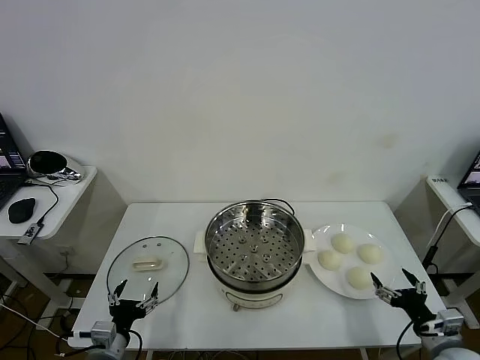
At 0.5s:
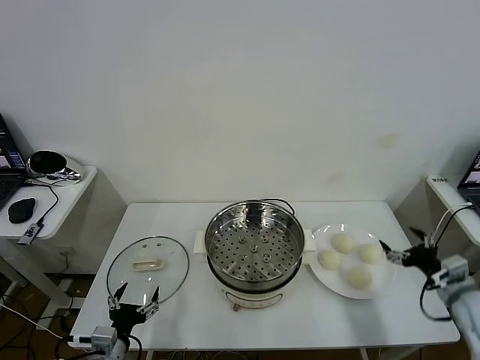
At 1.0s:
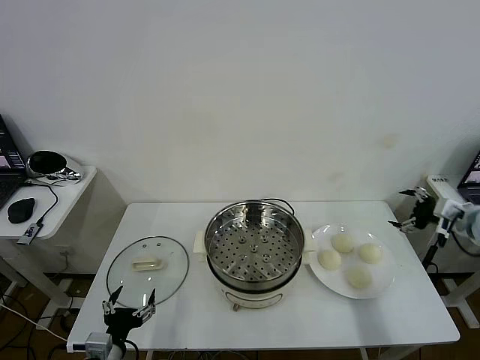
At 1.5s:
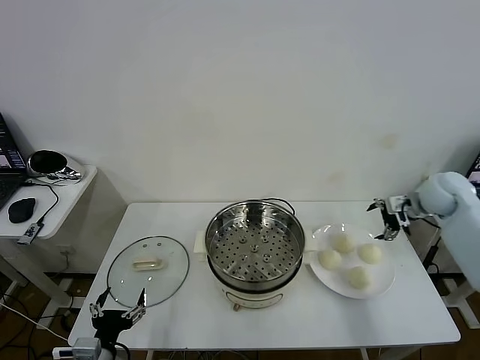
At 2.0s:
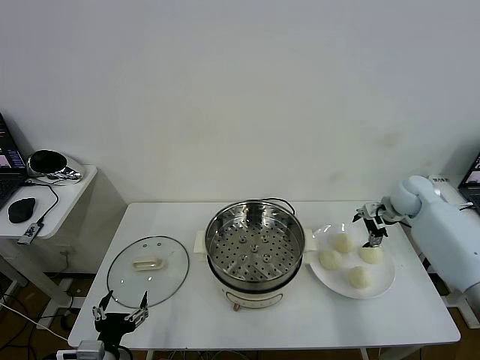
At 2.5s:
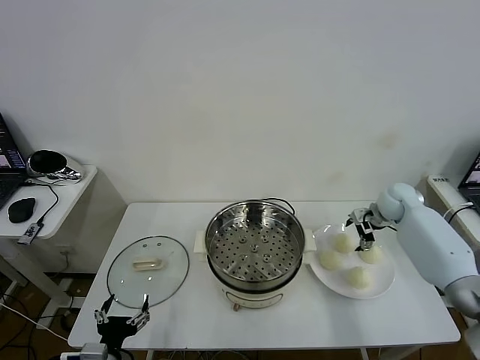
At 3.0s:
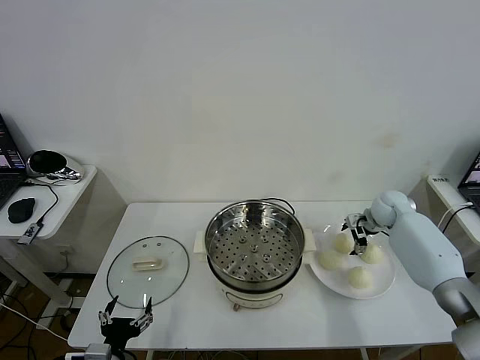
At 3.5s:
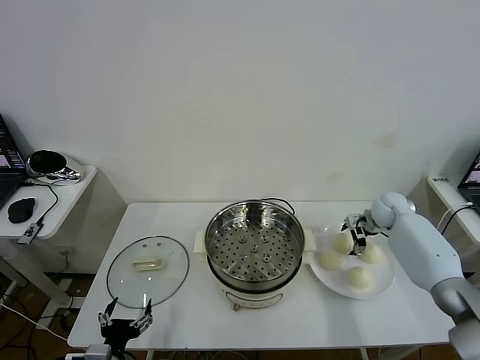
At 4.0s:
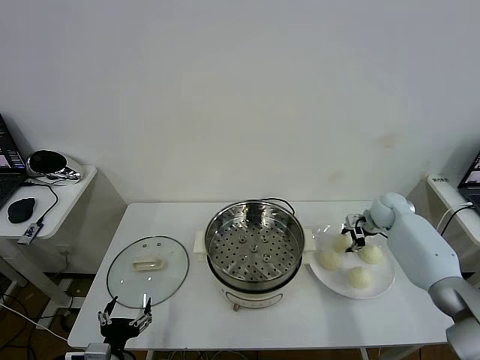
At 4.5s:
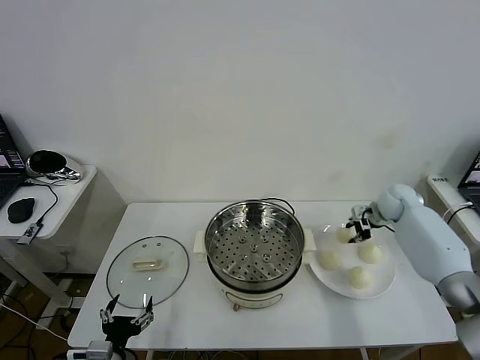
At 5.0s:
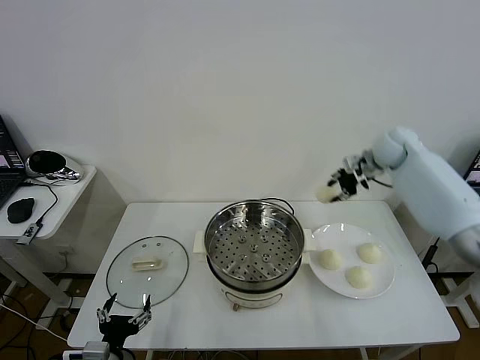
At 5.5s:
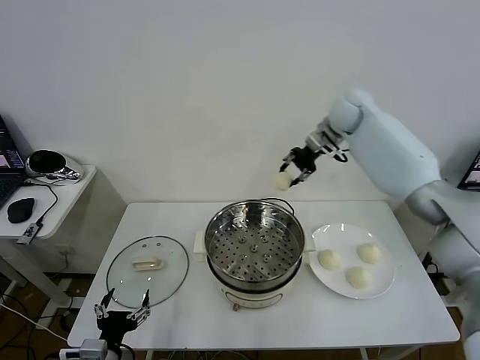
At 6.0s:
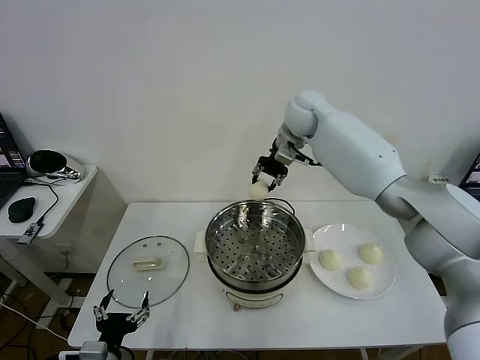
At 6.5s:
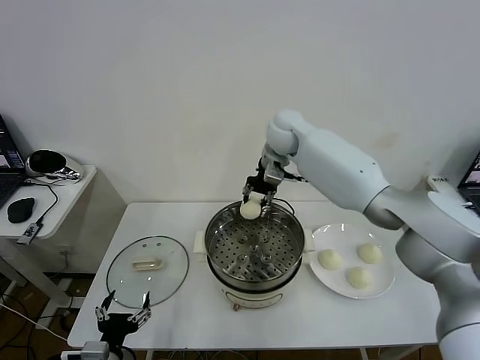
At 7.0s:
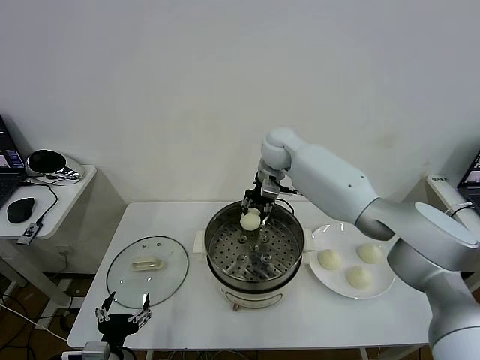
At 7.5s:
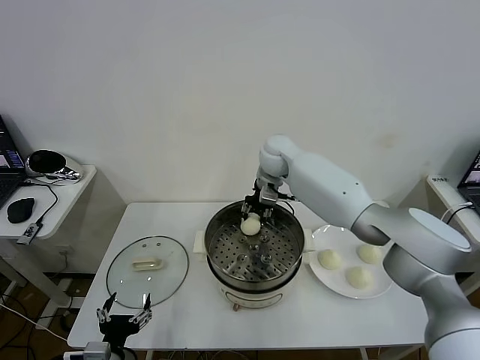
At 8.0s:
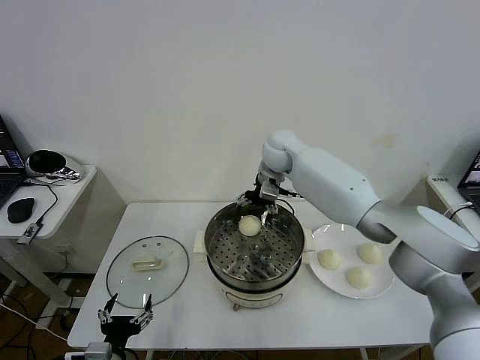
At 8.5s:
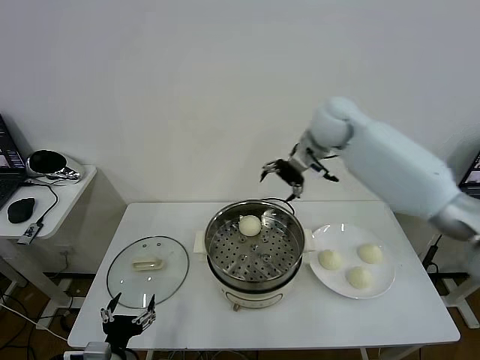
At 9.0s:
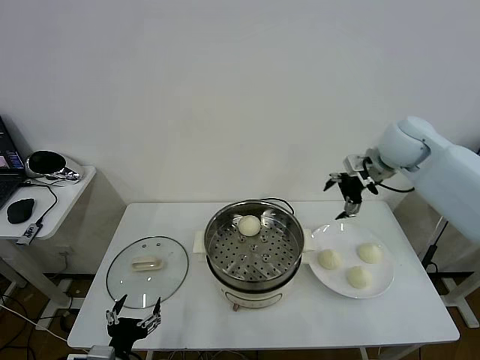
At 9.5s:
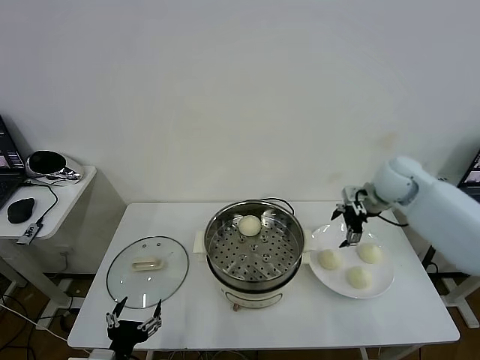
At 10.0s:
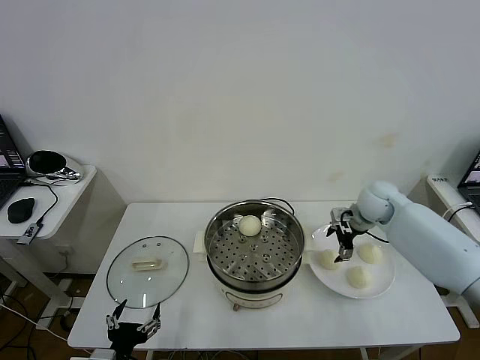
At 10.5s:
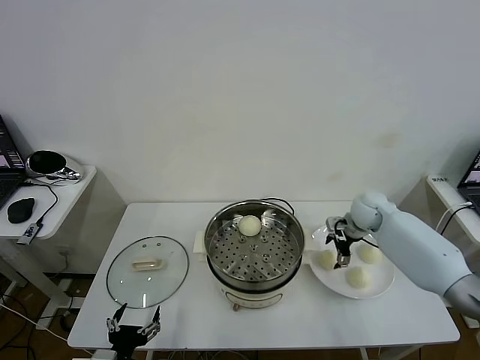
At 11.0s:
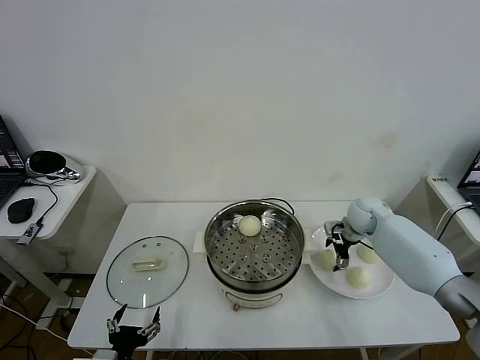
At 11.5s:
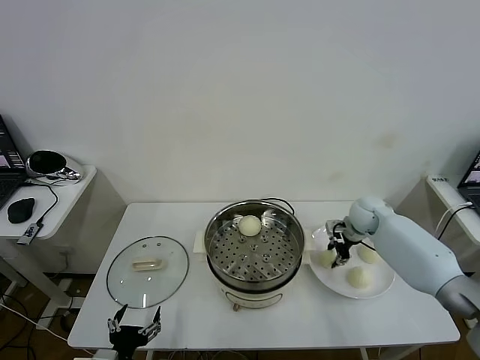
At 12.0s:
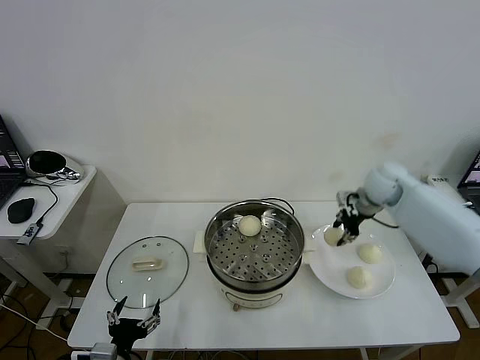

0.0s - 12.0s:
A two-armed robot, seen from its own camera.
Task of the whole recording: take steamed baozi put them in steamer then cover it.
Step, 0.0s - 3.5s: Grasp the baozi in the plate with right gripper.
Step, 4.0s - 8.0s: Place the baozi on the steamer with right gripper.
Step, 8.5s - 11.0s: Grasp the baozi in the plate with right gripper.
2.0s - 4.0s: The right gripper goes some 5 cm downward, and closes its fingers.
4.0s - 6.0s: The right gripper travels to the left and upward by about 35 cm.
6.0s - 8.0s: The right gripper opens.
8.0s - 10.0s: The right gripper moves to the right and downward, approximately 25 cm.
10.0s - 12.0s: The right gripper moves upward, some 10 cm, and closes its fingers.

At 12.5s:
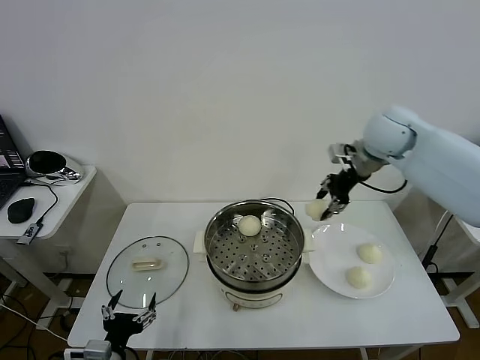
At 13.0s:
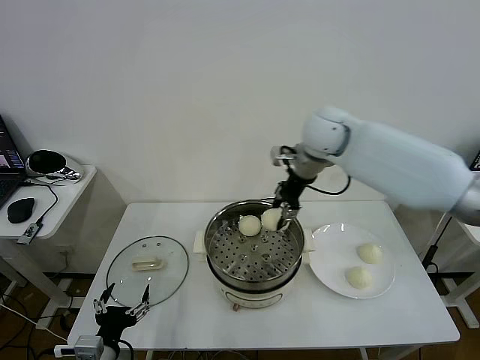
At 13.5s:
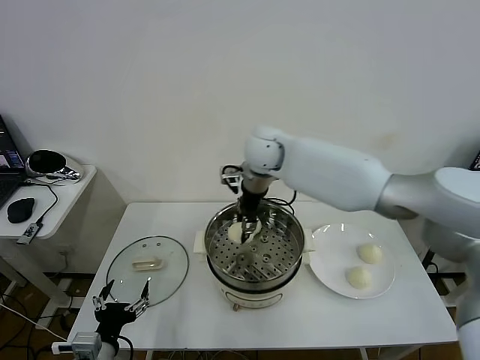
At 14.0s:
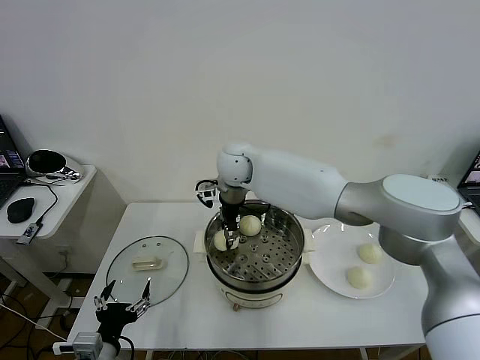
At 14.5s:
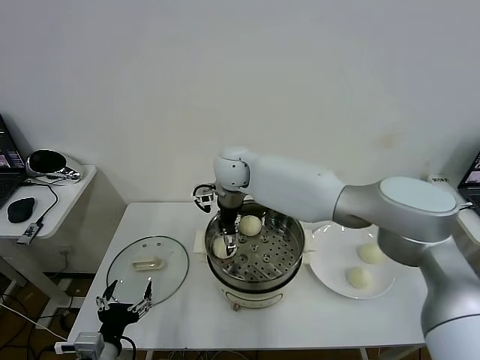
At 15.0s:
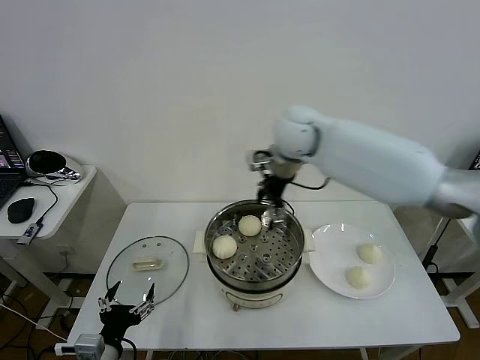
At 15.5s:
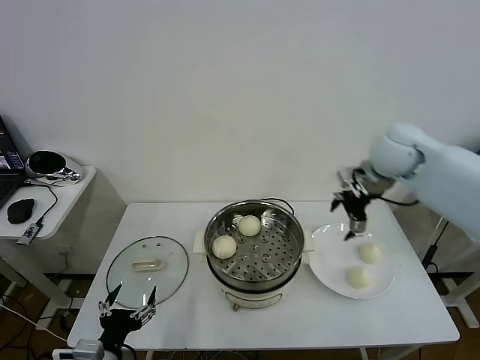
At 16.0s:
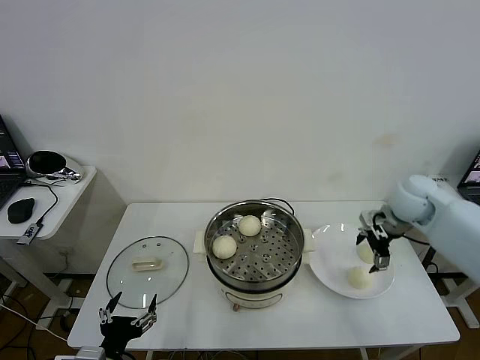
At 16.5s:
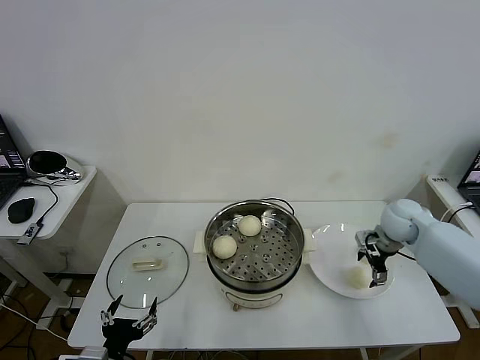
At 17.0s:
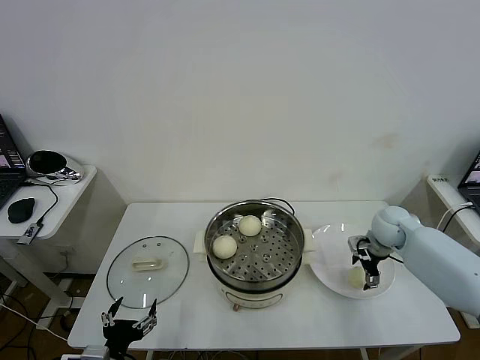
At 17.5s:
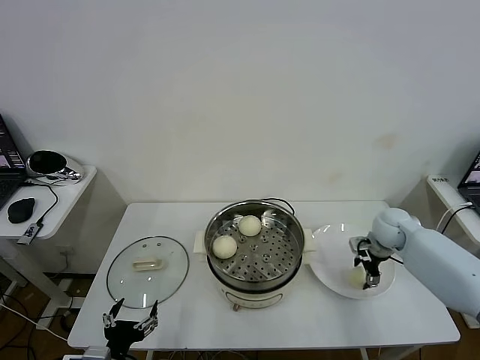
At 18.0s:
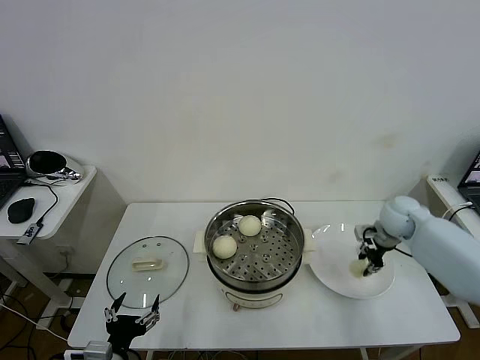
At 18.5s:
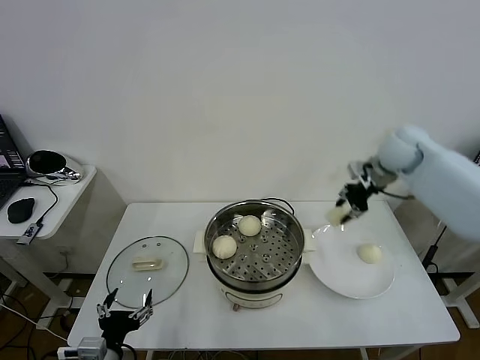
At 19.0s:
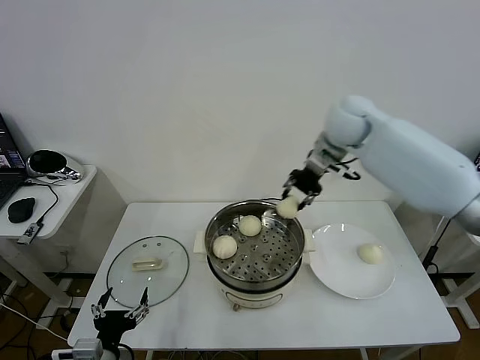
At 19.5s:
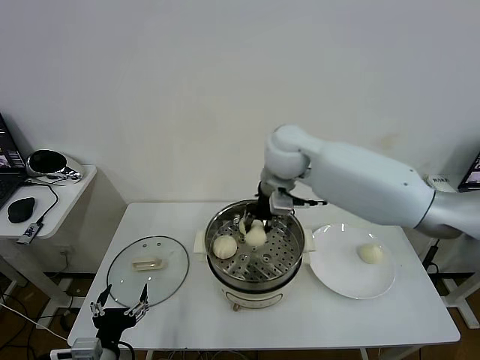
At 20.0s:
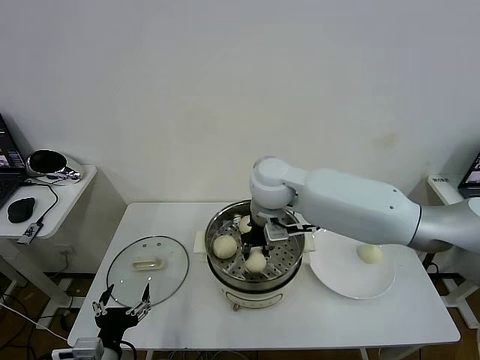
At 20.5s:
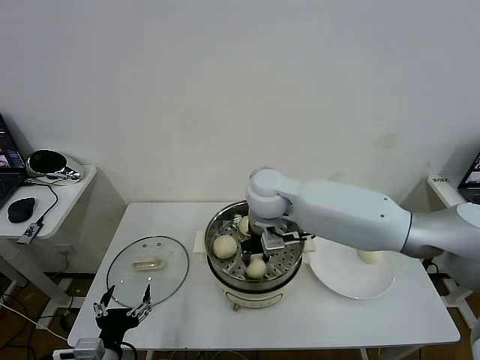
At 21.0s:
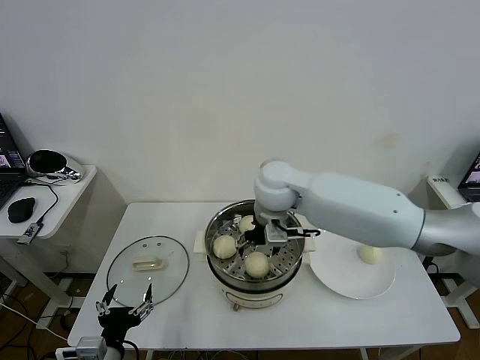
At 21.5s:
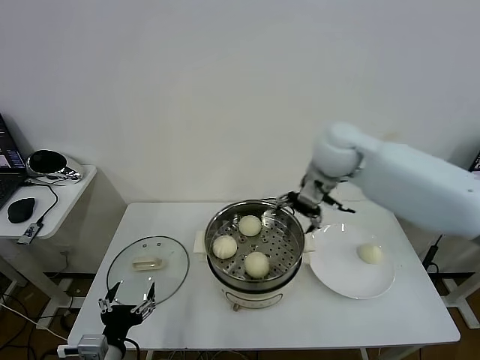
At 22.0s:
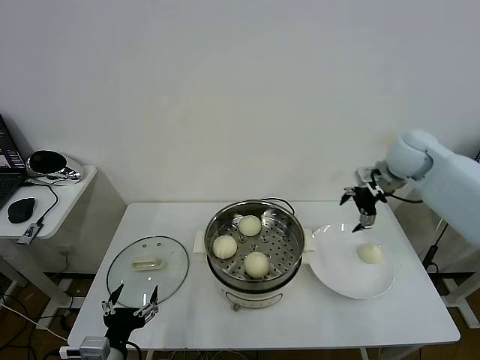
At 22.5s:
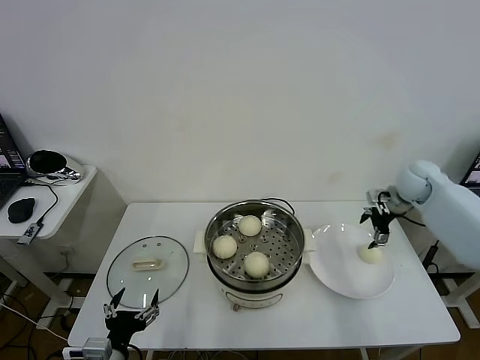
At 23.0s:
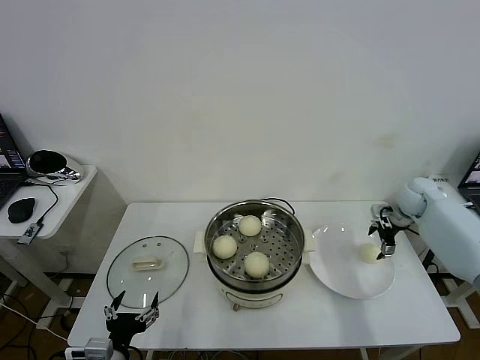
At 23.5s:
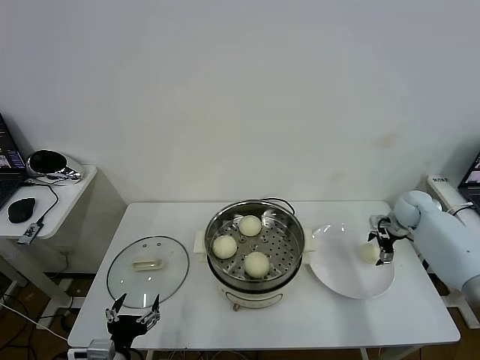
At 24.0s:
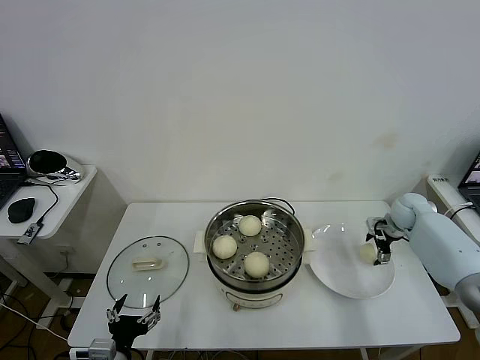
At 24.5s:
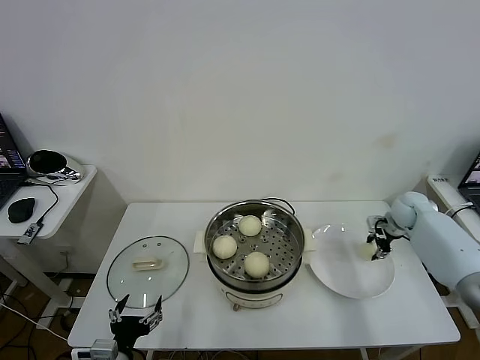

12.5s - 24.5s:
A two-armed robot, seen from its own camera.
Task of the whole recording: take steamed baozi put them in steamer then cover it.
Step, 12.5s - 14.5s: Place the baozi on the steamer with right gripper.
Step, 15.0s - 17.5s: Grasp the baozi in the plate with right gripper.
Step, 18.0s - 20.5s: Place the baozi on the steamer with right gripper.
12.5s - 14.5s: The right gripper shifts some 25 cm to the left, and opens its fingers.
14.5s - 16.5s: The right gripper moves to the right, about 40 cm.
16.5s - 18.5s: The right gripper heads upward, covering about 20 cm, and closes up.
18.5s - 20.5s: The right gripper goes approximately 25 cm to the left.
20.5s - 22.5s: The right gripper goes about 35 cm to the right, and opens its fingers.
22.5s - 24.5s: The right gripper heads downward, covering about 10 cm, and closes up.

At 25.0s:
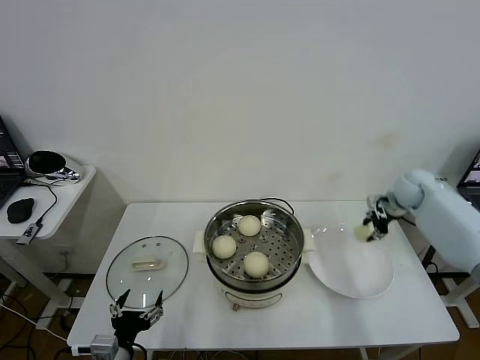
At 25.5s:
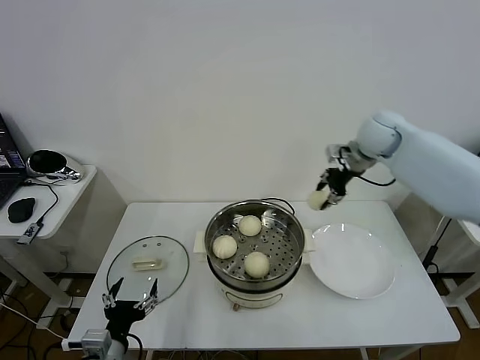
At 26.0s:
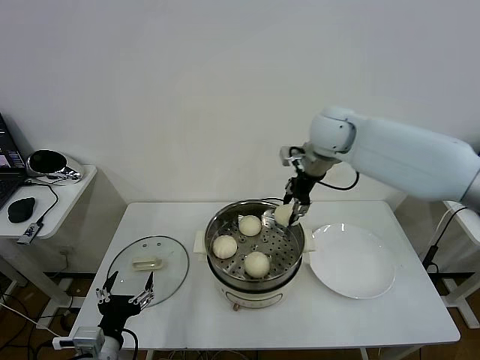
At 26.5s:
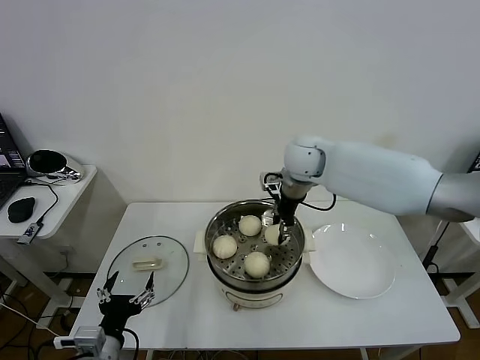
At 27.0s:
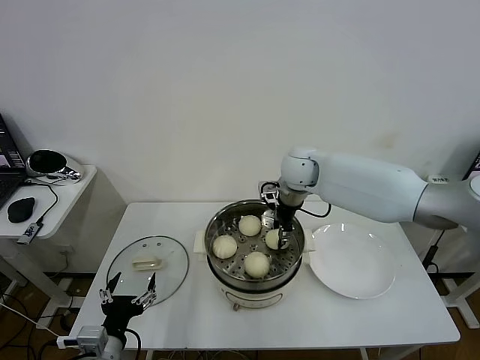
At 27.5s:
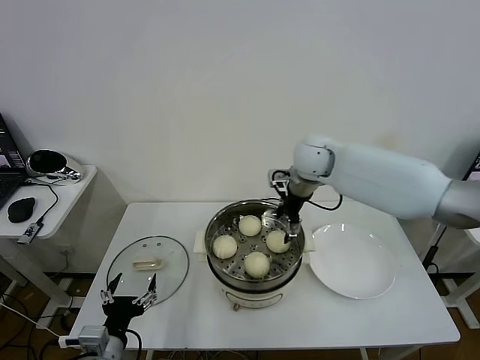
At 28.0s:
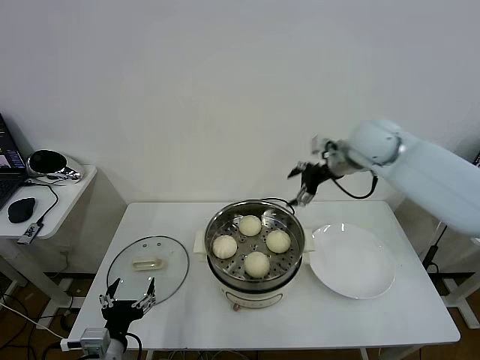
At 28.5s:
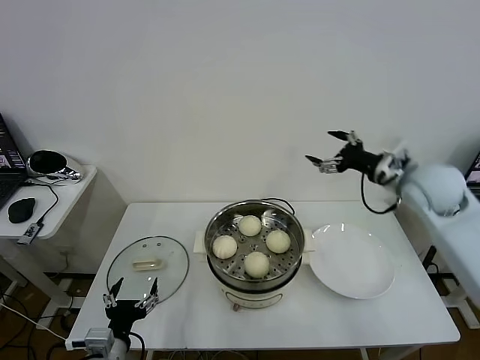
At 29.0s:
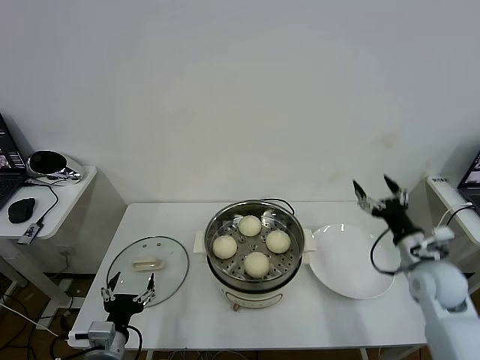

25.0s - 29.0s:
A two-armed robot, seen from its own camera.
Task of the whole recording: take steamed baozi put them in steamer then cover it.
Step, 25.0s - 27.5s: Place the baozi on the steamer with right gripper.
25.0s - 27.0s: The right gripper is displaced to the left by about 30 cm.
27.0s - 29.0s: The right gripper heads to the right, backward and downward, covering about 35 cm, and opens.
